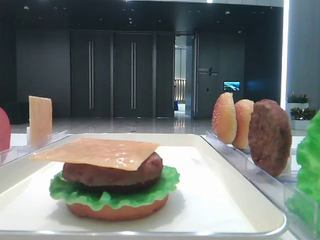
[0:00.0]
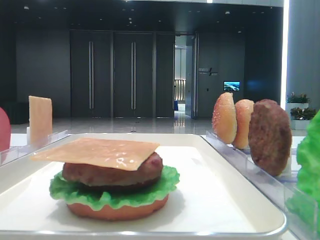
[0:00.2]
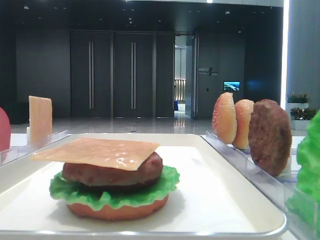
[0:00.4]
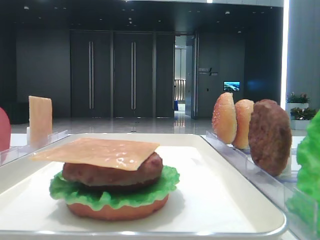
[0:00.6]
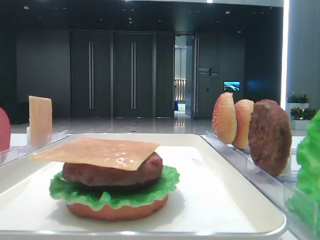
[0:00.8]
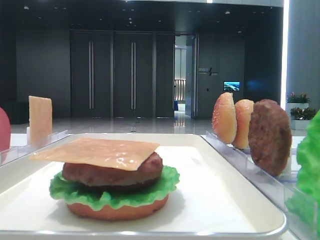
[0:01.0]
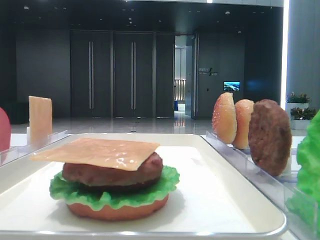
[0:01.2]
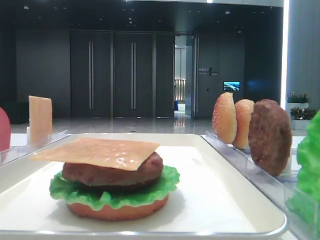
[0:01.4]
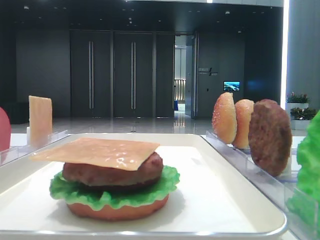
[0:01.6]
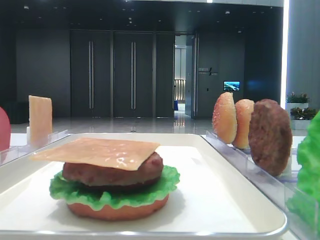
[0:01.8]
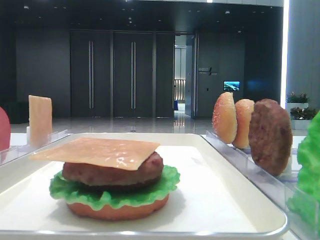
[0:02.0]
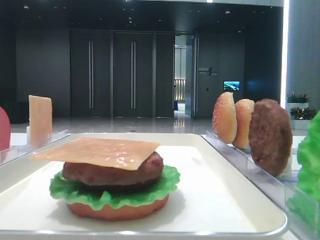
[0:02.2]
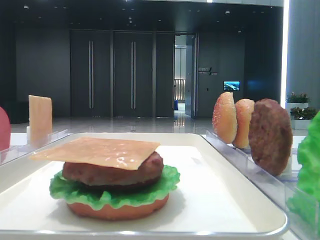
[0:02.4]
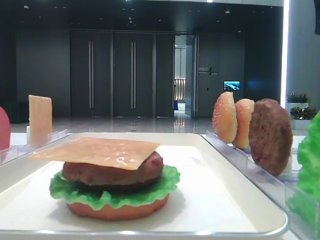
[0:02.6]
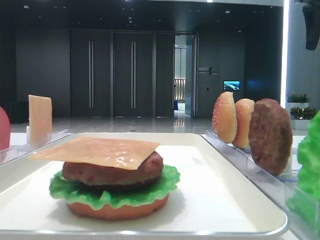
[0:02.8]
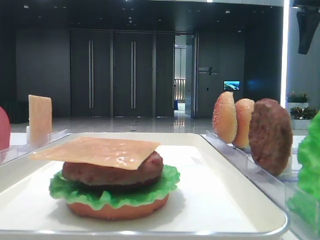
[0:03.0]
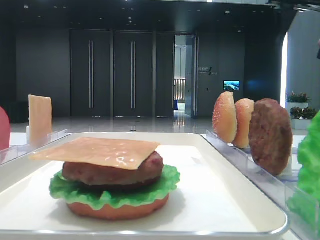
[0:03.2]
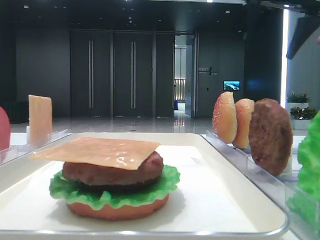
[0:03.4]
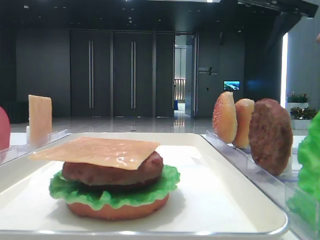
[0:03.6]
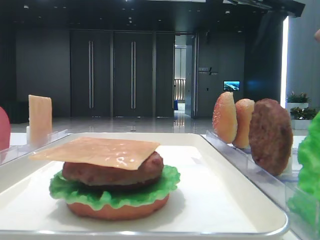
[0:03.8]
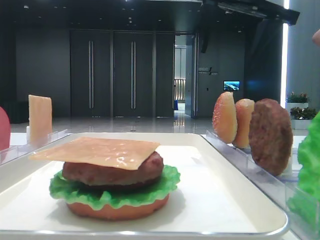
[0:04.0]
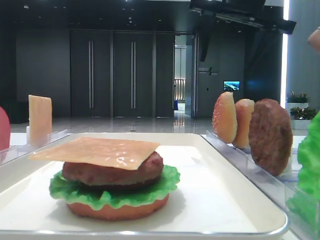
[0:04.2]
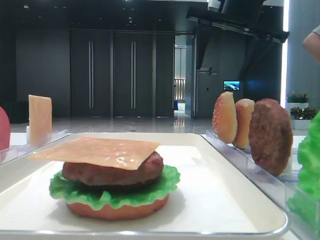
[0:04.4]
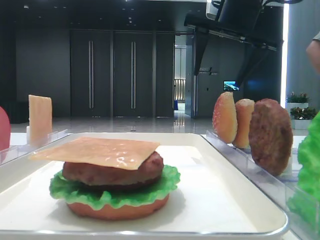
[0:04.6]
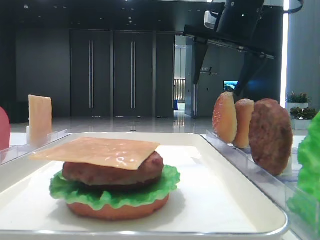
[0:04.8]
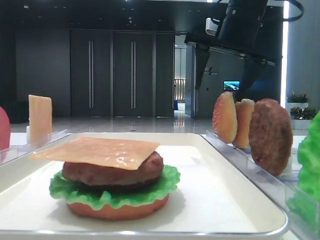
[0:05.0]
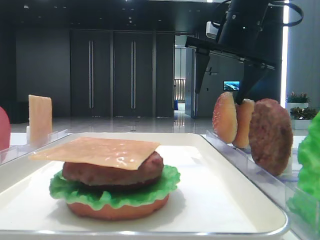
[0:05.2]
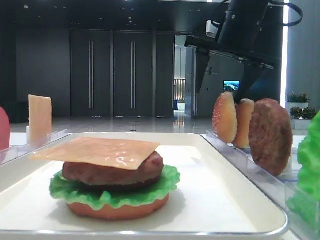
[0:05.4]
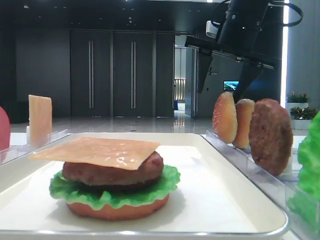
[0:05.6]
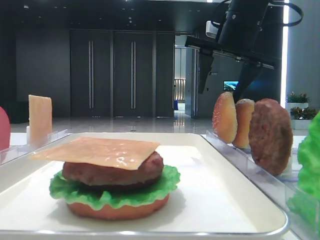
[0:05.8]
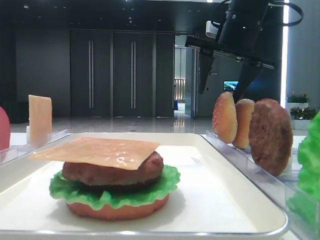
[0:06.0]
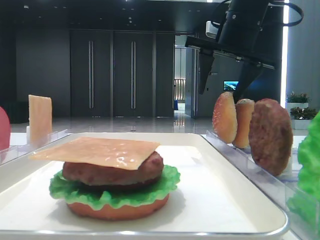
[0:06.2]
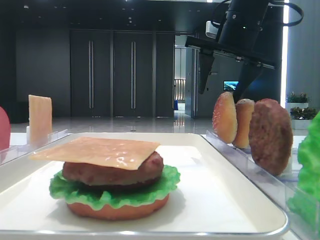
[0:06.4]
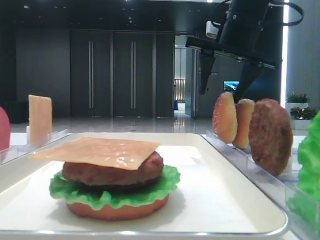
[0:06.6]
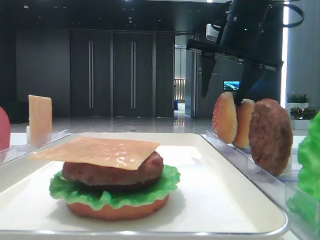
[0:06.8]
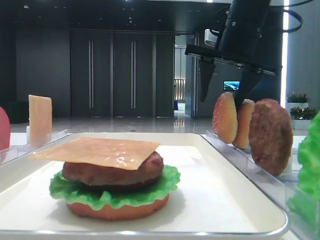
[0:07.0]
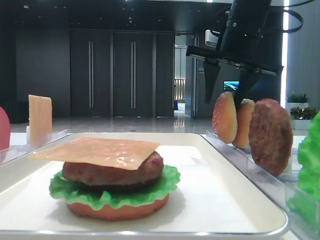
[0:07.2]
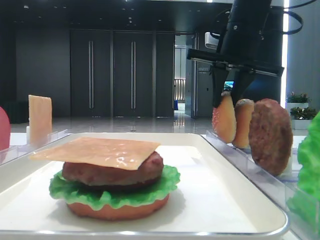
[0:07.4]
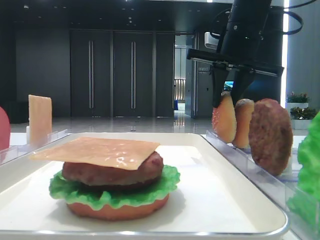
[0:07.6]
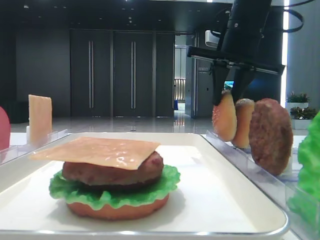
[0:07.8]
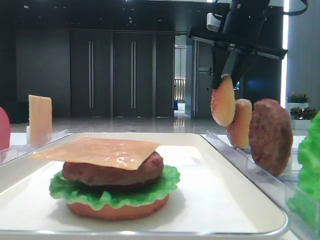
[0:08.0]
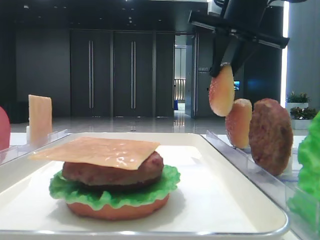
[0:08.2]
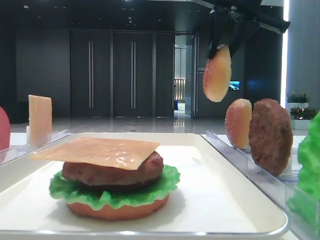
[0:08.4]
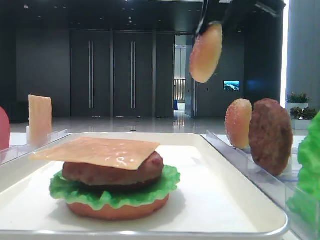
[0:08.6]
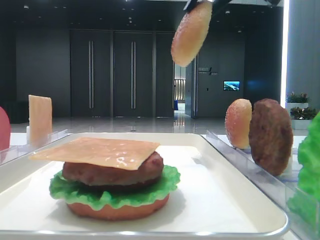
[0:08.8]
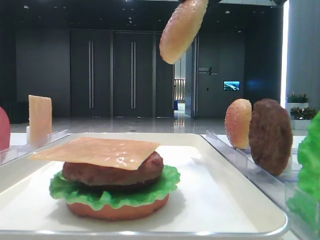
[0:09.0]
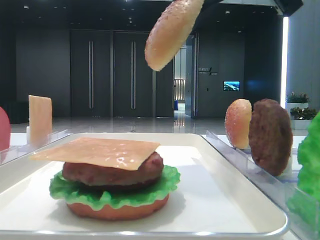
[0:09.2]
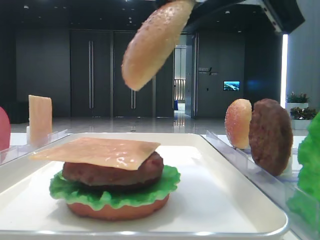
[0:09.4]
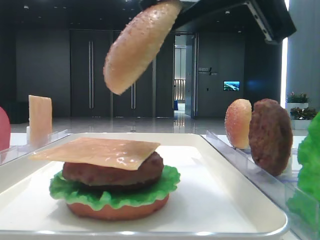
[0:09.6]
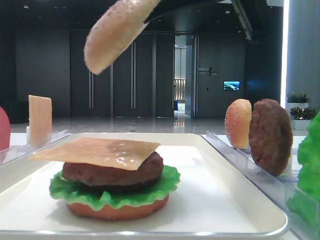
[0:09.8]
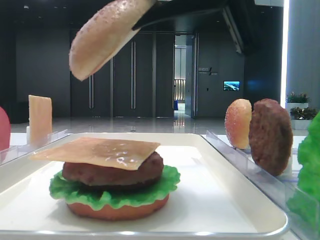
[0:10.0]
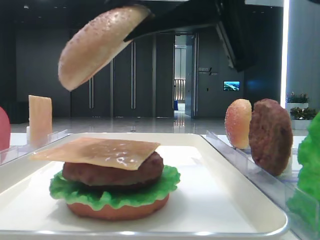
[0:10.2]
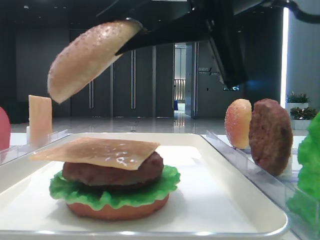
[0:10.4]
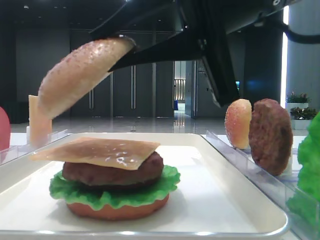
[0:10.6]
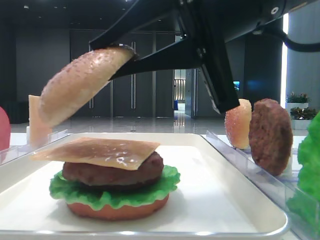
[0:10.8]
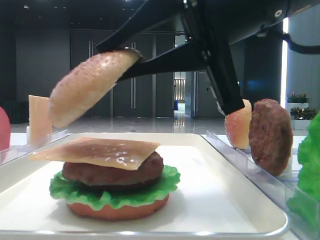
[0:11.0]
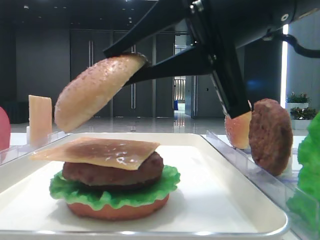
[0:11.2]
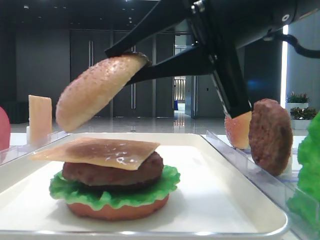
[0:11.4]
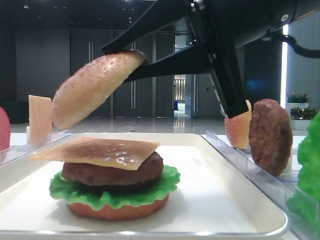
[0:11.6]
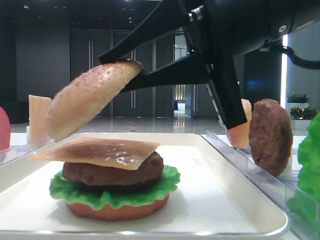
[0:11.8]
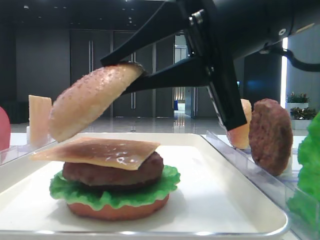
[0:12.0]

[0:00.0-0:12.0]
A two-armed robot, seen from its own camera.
Step, 0:00.0 to 0:07.6: Pick up the top bread slice with the right hand.
0:01.6 to 0:03.0: The right gripper shifts roughly 35 cm forward.
0:03.0 to 0:04.4: The right gripper heads to the left, covering roughly 15 cm.
0:04.4 to 0:06.0: The grippers stay close to where they were, moving slightly.
0:06.0 to 0:07.6: The right gripper closes its fingers.
0:07.6 to 0:09.0: The right gripper goes about 15 cm backward and upward.
0:09.0 to 0:10.4: The right gripper moves downward and backward, roughly 10 cm.
0:10.4 to 0:12.0: The grippers move only a little.

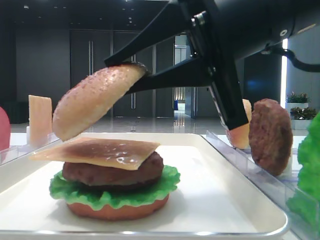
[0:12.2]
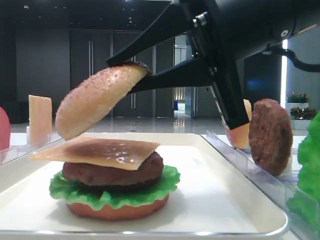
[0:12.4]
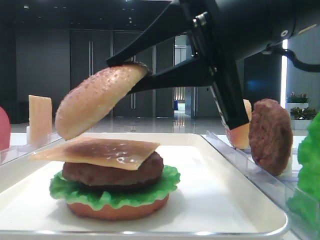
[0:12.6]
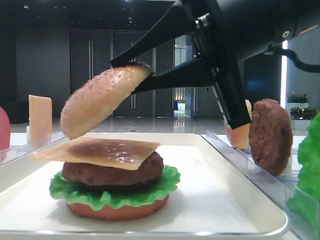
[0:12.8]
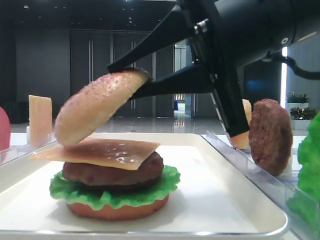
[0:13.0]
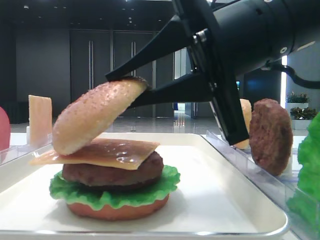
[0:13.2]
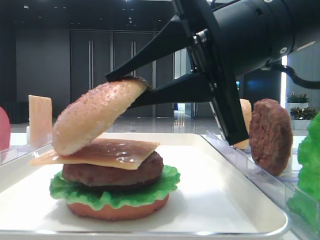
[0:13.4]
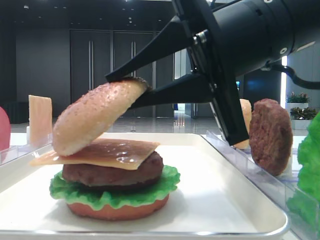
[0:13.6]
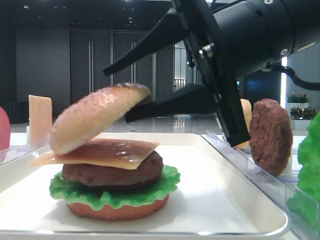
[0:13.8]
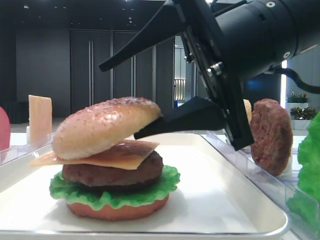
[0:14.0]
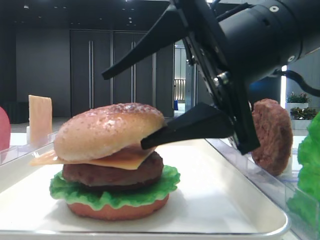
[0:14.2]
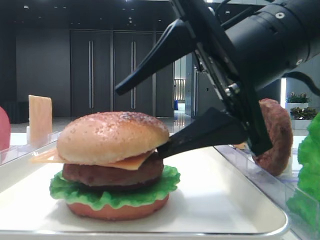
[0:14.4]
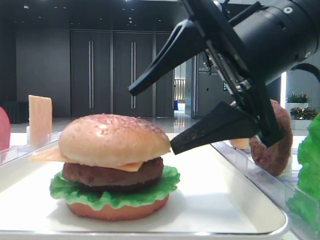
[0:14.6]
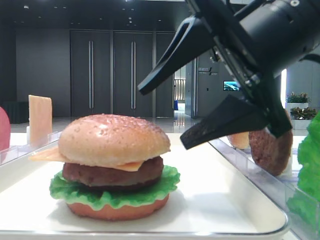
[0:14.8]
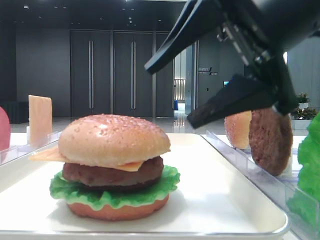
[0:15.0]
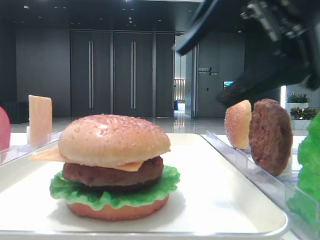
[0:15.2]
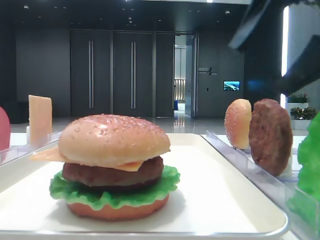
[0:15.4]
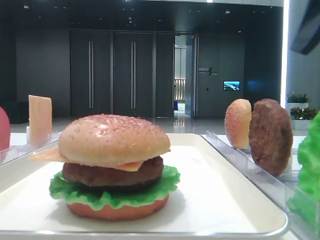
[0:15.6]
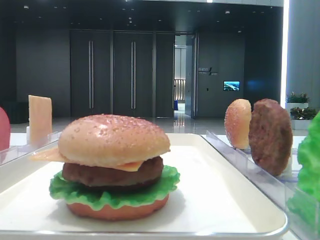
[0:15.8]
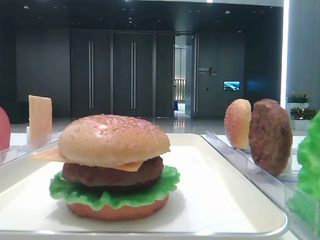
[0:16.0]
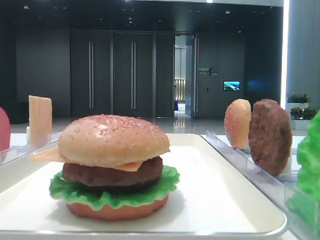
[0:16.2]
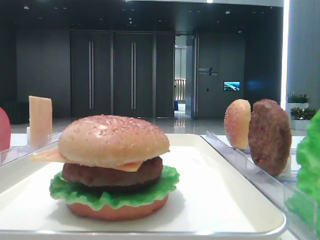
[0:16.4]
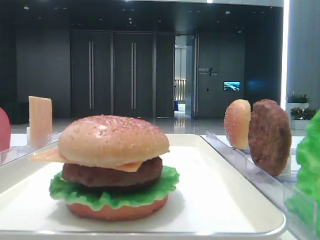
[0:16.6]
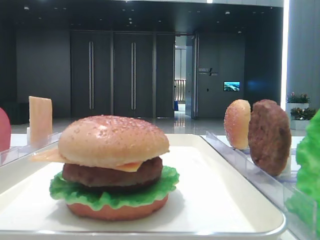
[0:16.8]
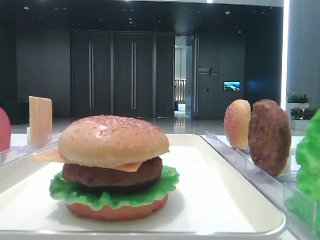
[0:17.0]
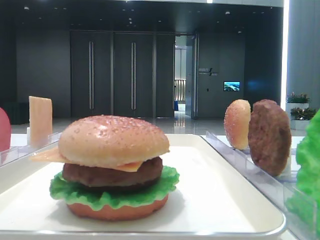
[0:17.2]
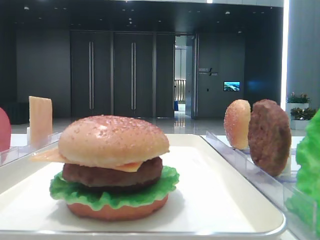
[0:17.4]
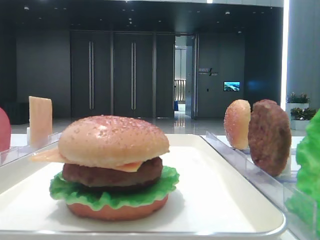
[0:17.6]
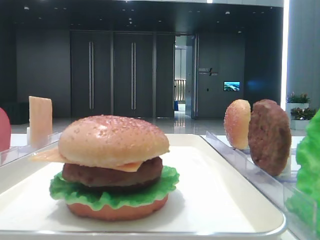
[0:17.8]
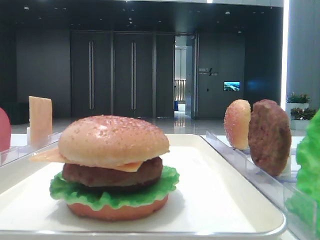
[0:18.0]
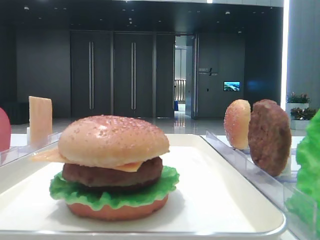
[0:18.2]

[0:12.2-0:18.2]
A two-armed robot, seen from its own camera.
Step, 0:12.2 to 0:14.4: Place the top bread slice on the cheese with the right hand.
0:12.2 to 0:13.8: The grippers make only small movements.
0:13.8 to 0:15.2: The right gripper moves roughly 5 cm, and opens its fingers.
0:15.2 to 0:16.6: The right gripper travels to the right, backward and upward by approximately 20 cm.

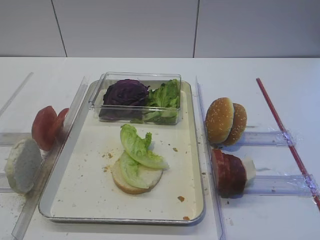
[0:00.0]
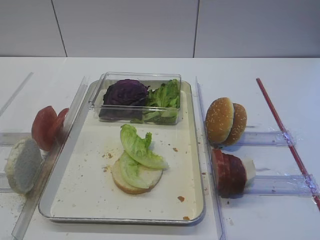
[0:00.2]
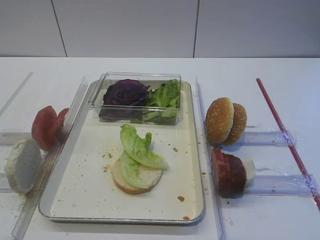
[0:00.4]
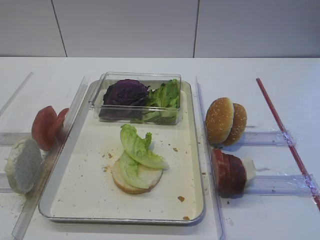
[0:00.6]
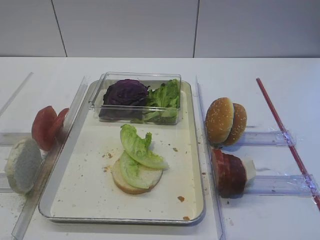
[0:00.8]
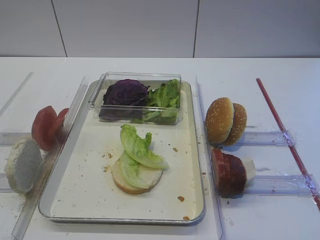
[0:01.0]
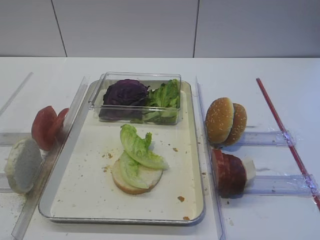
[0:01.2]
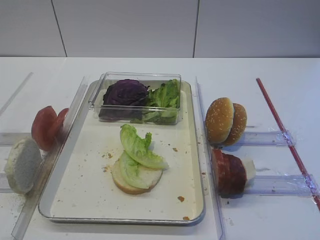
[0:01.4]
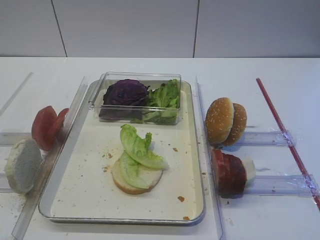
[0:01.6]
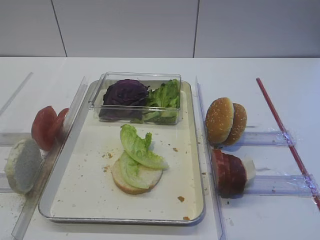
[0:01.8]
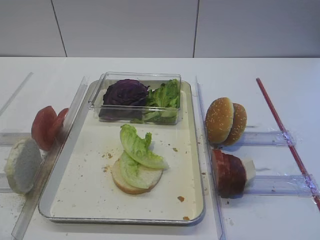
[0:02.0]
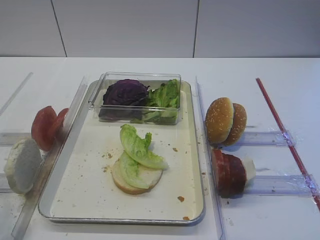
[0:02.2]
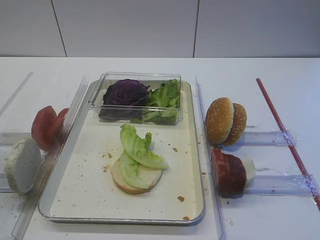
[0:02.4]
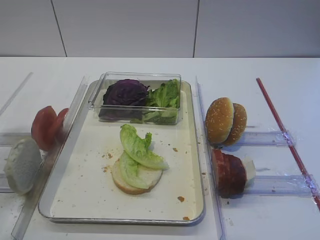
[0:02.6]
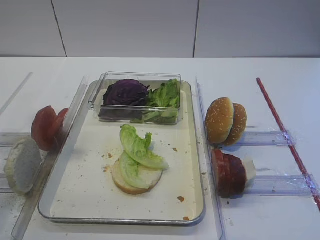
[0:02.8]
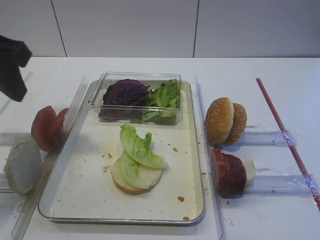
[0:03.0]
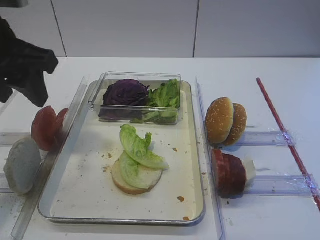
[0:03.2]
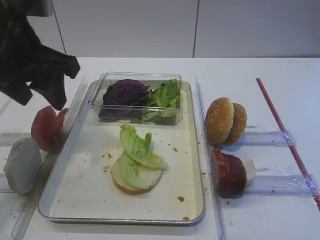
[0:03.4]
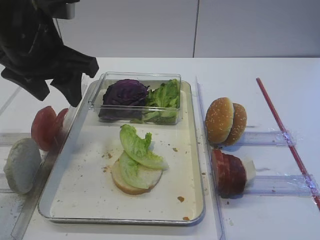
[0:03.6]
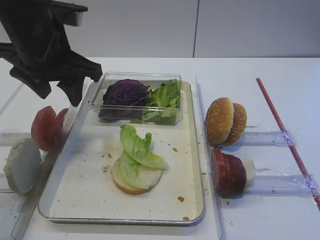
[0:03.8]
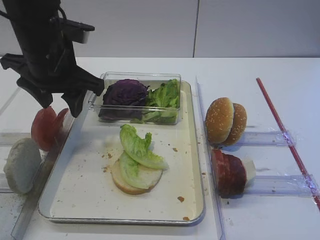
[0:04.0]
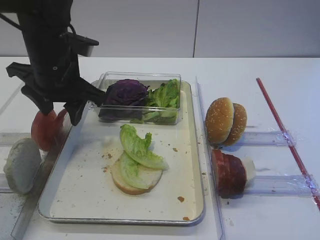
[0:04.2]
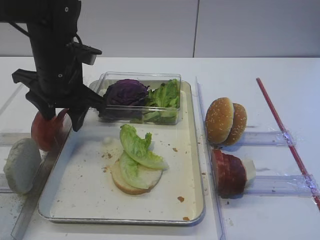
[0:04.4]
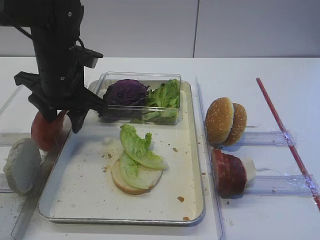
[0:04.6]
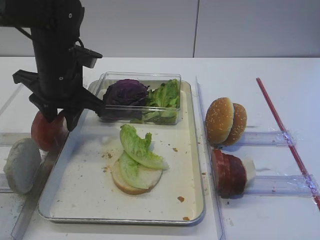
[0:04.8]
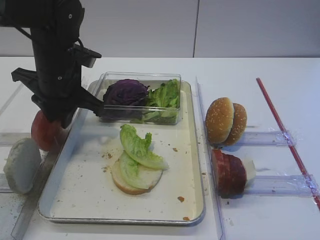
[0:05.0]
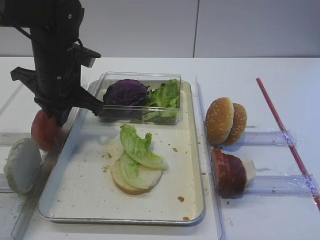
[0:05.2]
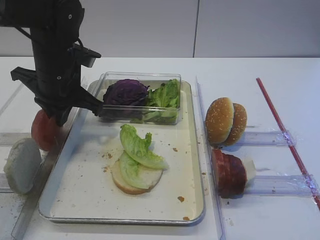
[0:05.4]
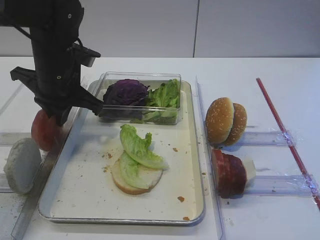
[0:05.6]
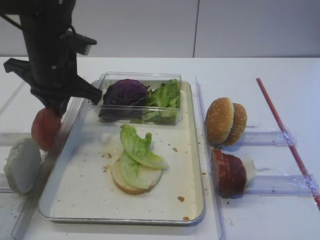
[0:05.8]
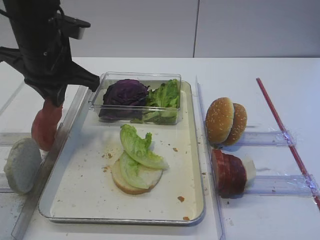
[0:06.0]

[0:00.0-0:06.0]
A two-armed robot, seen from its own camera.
Step, 0:00.0 to 0:06.0: Pick up the tomato slice with the left gripper.
0:01.6 to 0:03.0: The left gripper moves forward and upward, approximately 25 cm.
0:03.0 to 0:04.4: The left gripper travels forward, downward and to the right by approximately 20 cm.
0:04.4 to 0:06.0: The left gripper closes its fingers.
